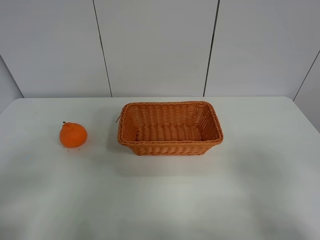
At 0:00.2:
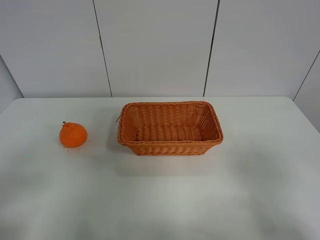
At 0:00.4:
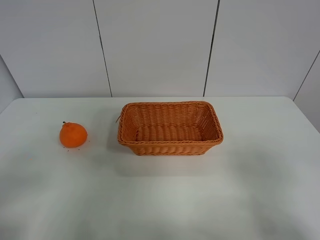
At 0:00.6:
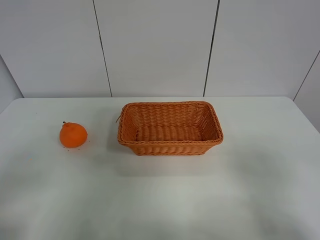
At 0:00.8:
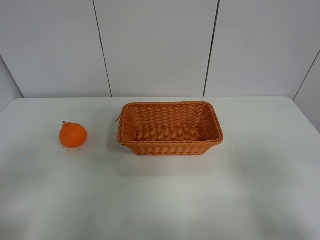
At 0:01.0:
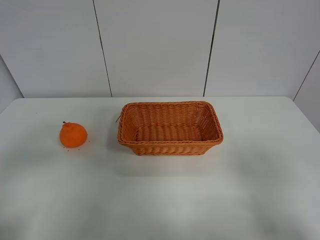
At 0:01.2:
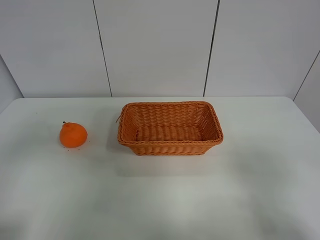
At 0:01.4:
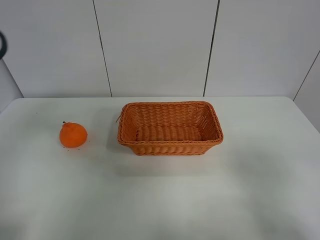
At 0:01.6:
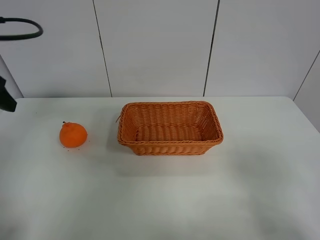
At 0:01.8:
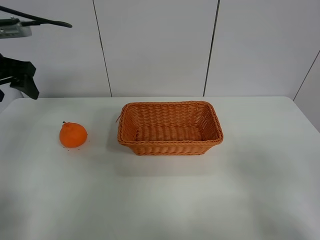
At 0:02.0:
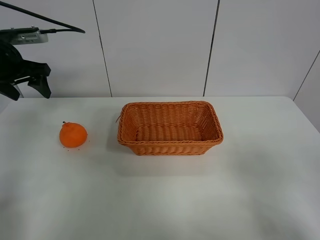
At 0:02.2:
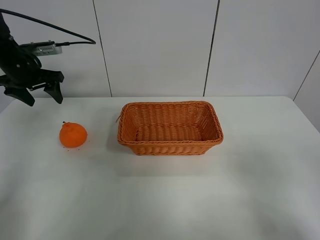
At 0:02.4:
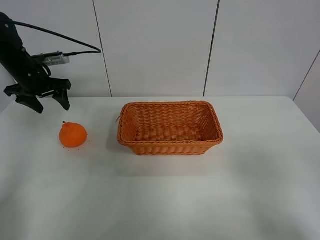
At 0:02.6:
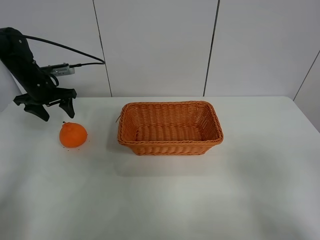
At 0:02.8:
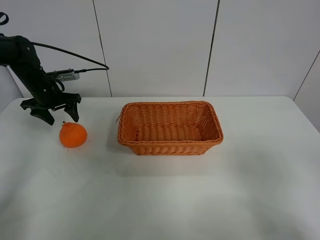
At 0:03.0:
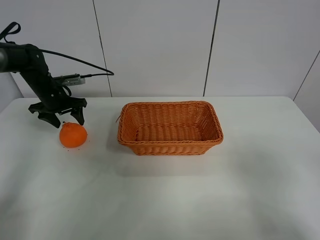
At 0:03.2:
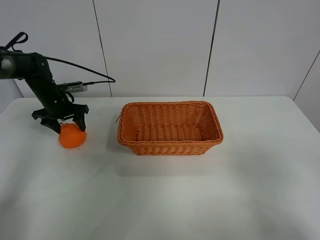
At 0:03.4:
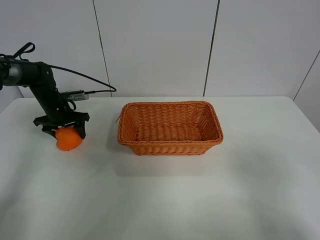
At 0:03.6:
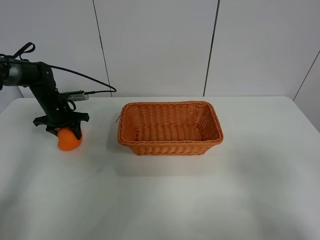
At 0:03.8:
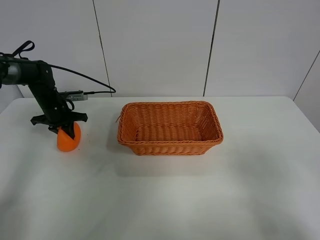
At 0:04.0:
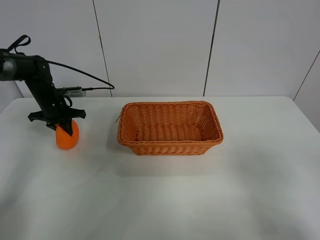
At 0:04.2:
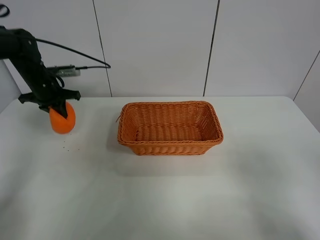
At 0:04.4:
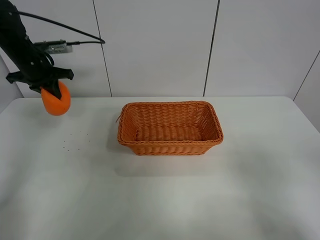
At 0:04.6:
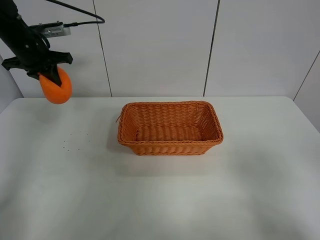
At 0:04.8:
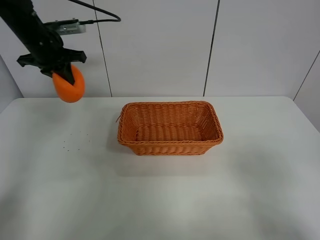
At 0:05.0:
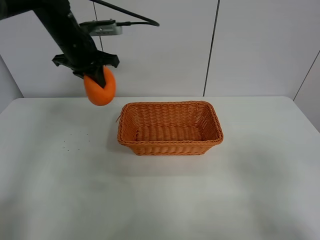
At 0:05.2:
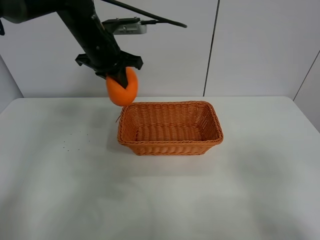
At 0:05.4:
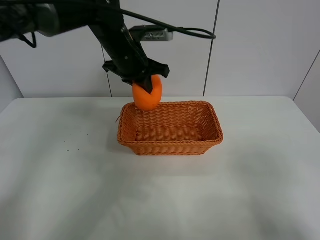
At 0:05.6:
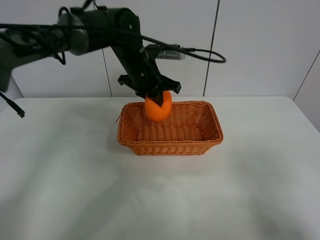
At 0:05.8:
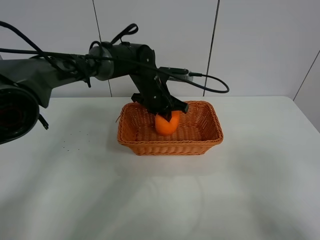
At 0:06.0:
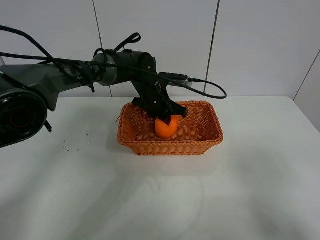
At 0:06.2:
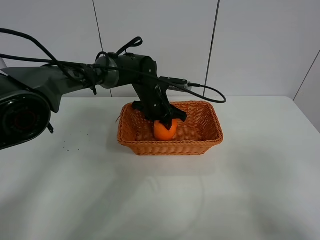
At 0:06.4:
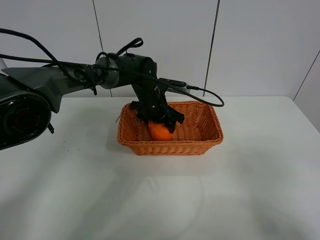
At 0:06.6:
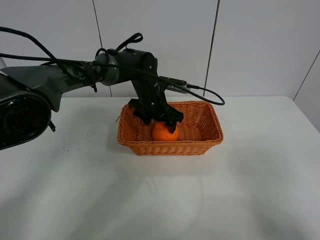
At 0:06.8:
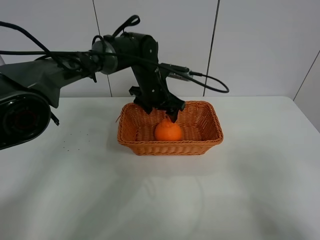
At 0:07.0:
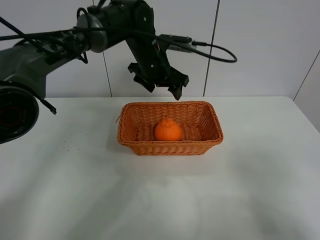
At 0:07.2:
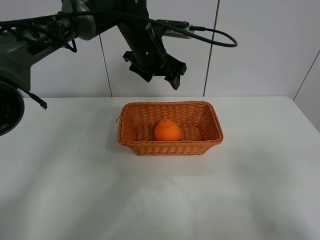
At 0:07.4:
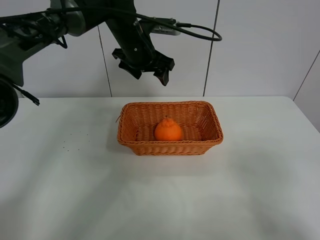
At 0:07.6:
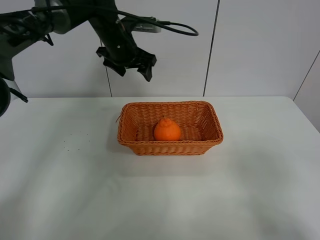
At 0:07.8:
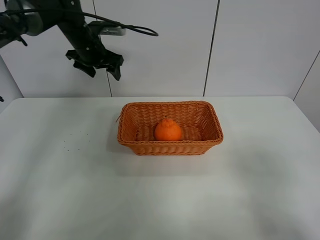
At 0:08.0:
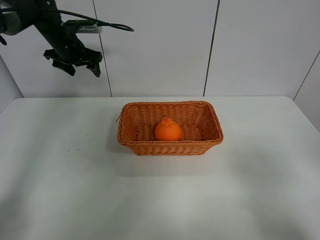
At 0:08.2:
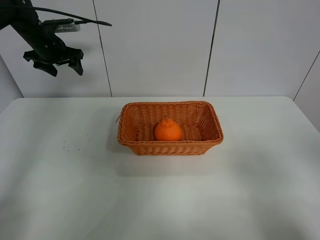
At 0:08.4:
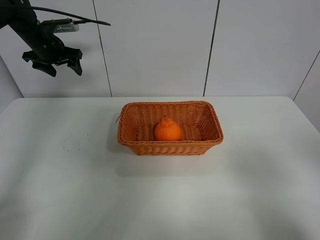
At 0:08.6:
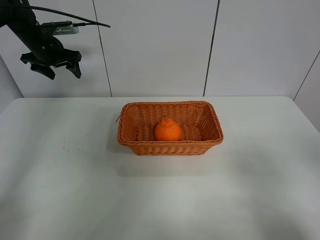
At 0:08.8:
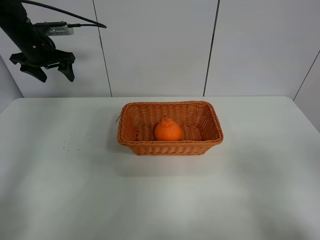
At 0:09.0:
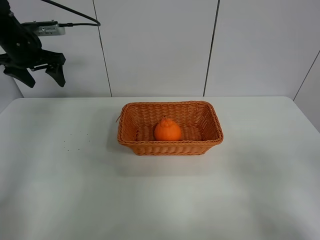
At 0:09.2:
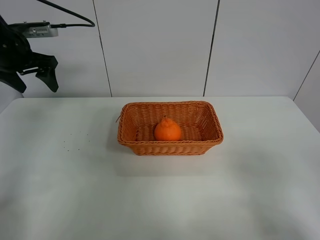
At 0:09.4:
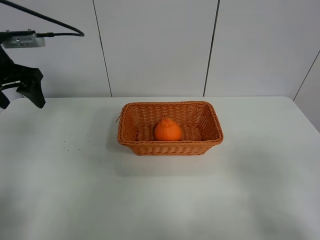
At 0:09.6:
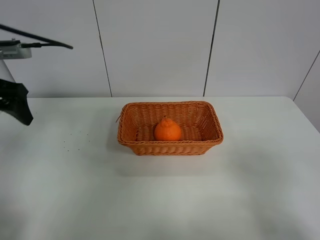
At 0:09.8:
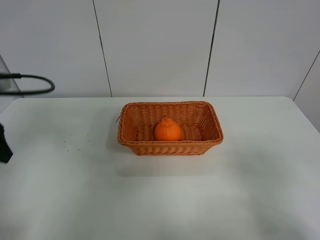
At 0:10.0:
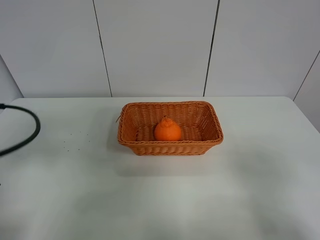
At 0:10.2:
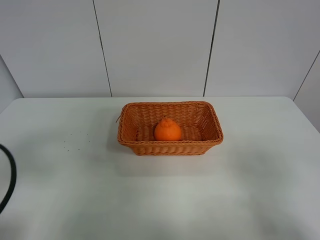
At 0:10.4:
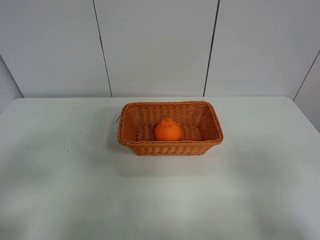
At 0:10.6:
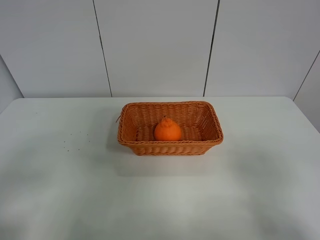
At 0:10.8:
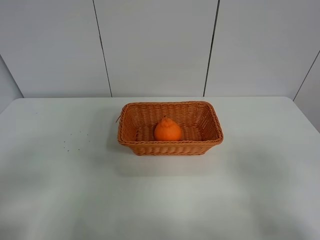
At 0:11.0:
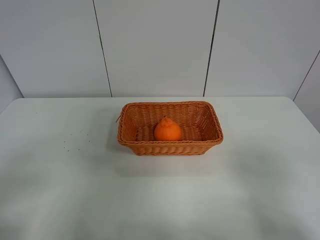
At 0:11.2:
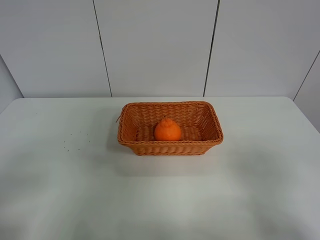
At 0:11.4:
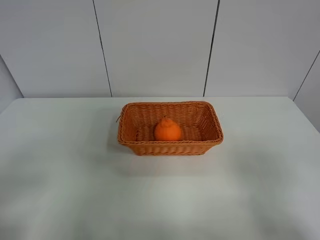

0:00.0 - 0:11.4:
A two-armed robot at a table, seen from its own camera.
Task of the whole recording: left gripper grabs oranges and puts them in the basket.
Step, 0:00.0 - 0:03.8: Grasp the orange with left gripper.
Step, 0:04.0 - 0:07.8: Place the orange in the basket with left gripper.
0:00.0 - 0:01.4: The left gripper heads forward and upward, covering roughly 20 cm.
0:01.4 - 0:02.8: The left gripper heads forward and downward, covering approximately 30 cm.
0:02.8 - 0:04.2: The left gripper closes up.
0:04.2 - 0:05.6: The left gripper shifts approximately 25 cm to the right.
0:05.6 - 0:07.2: The left gripper is displaced upward by roughly 5 cm, and opens up.
0:07.2 - 0:08.6: The left gripper travels to the left by some 30 cm.
0:08.6 - 0:10.0: The left gripper goes approximately 35 cm backward.
0:10.0 - 0:11.4: The left gripper heads backward, covering roughly 15 cm.
